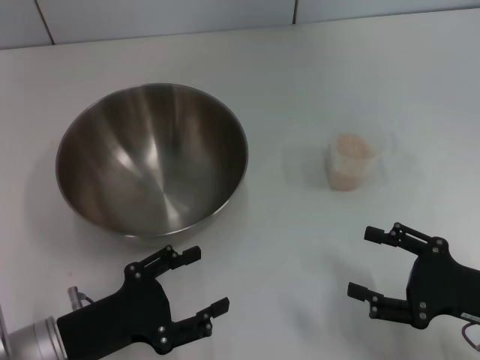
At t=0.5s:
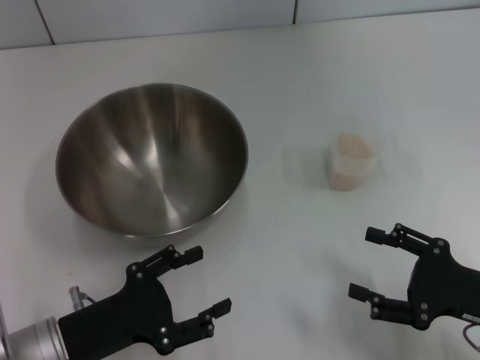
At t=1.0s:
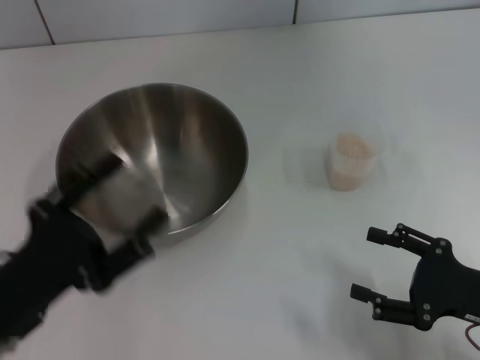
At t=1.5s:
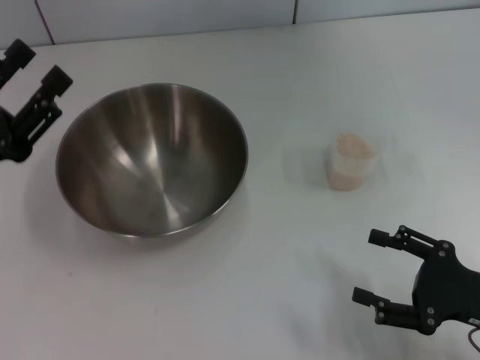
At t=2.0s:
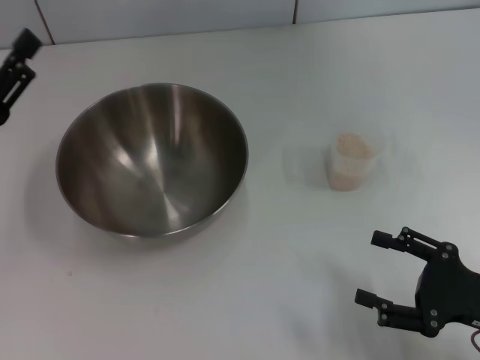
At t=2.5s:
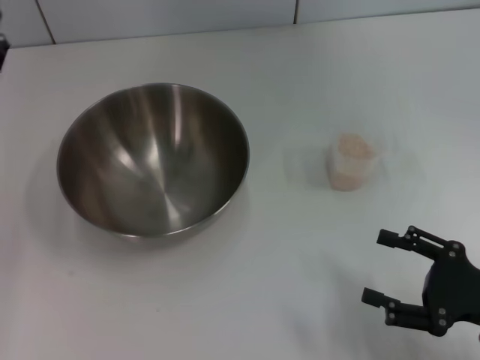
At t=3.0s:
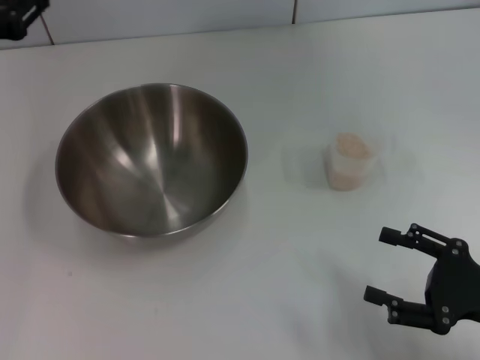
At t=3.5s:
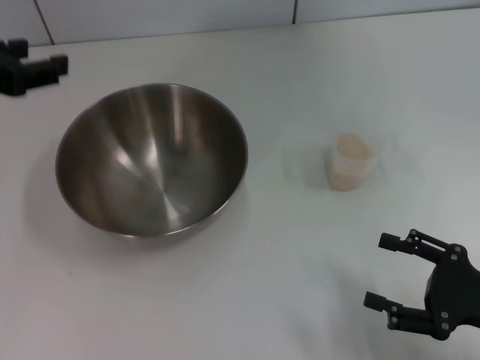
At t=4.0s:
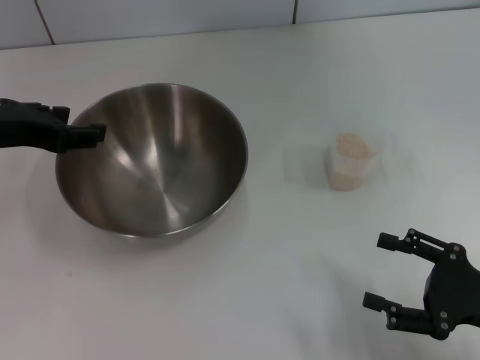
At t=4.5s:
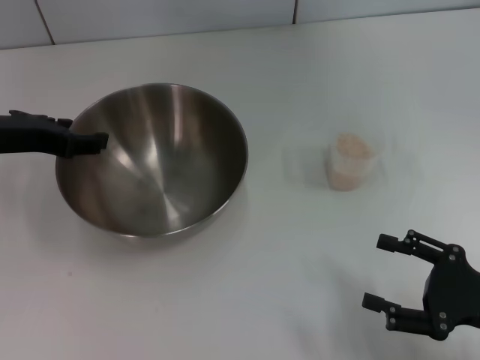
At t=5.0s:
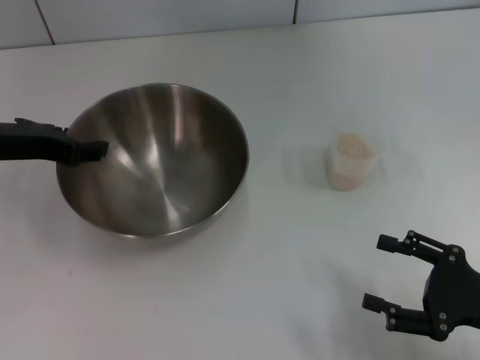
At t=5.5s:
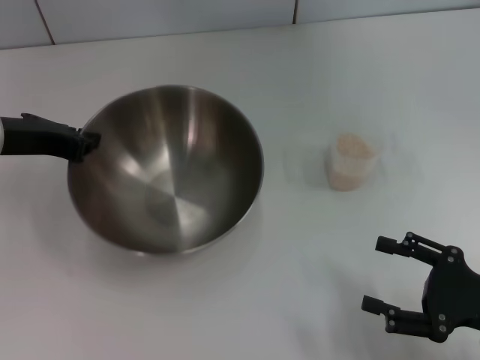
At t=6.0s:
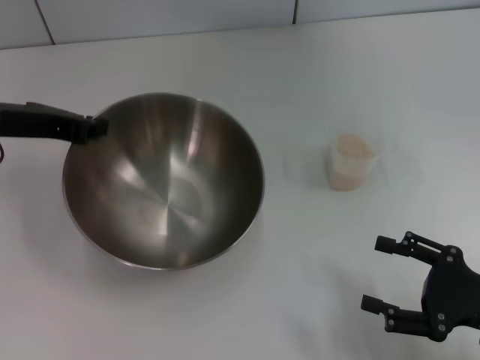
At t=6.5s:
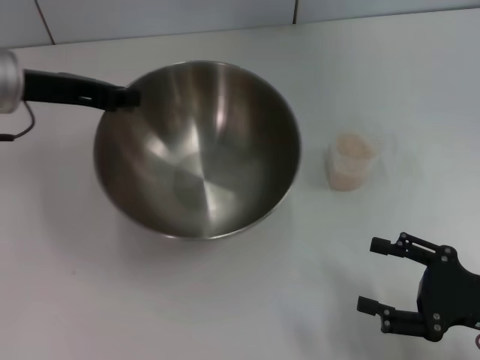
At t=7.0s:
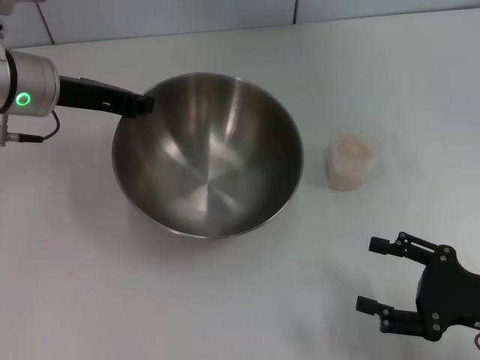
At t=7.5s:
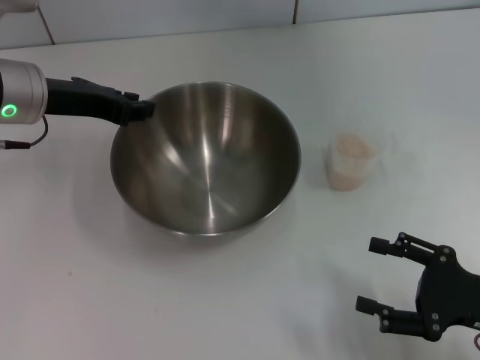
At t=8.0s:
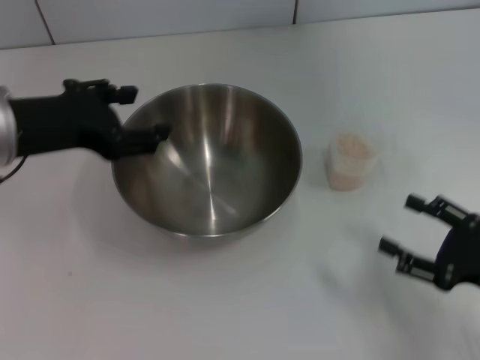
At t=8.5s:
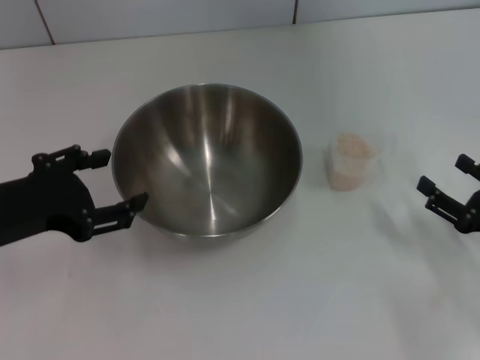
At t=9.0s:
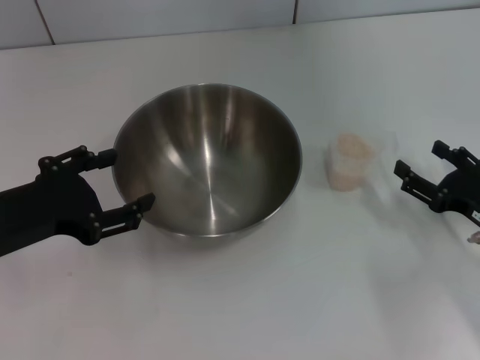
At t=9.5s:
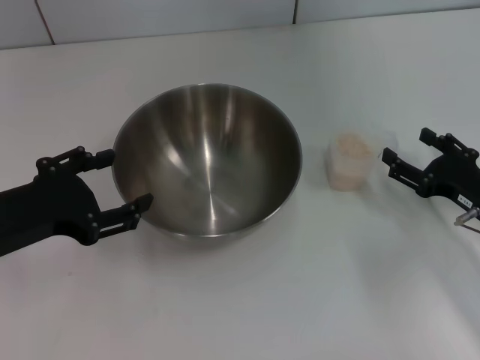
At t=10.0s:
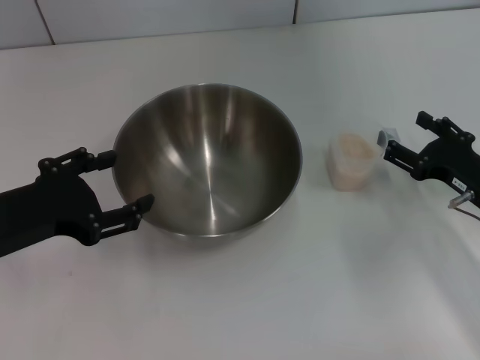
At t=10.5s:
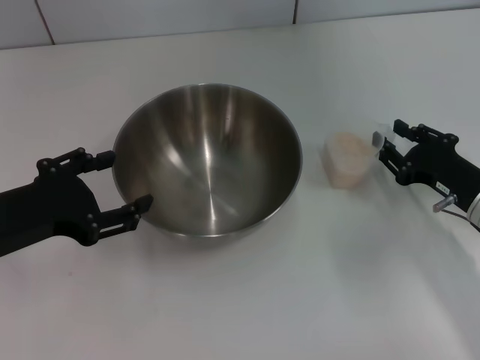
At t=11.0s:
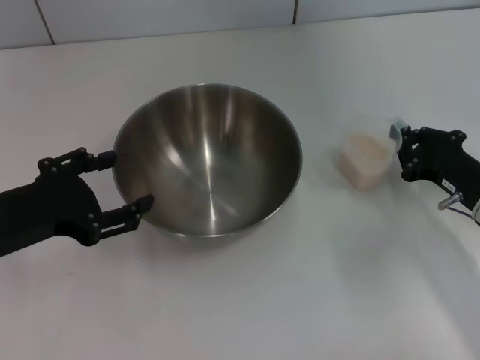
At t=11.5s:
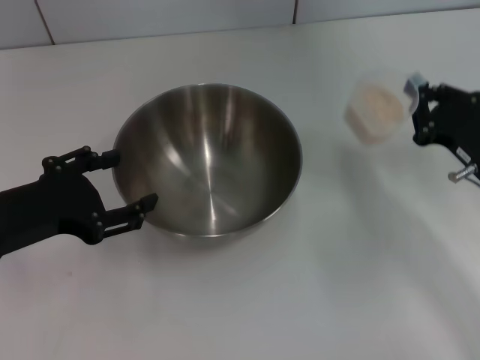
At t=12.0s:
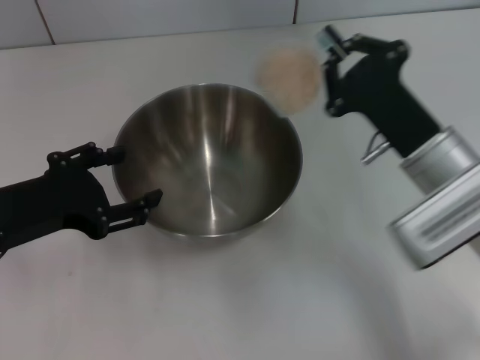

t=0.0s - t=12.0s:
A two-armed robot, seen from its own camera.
Task of the whole recording: Place the bowl in the middle of the table with one hand and pour the rice from the grain cup into it with the other hand.
Step, t=0.0s - t=6.0s: Pick up the bowl with the left gripper.
Step, t=6.5s - t=8.0s: Place the bowl in the center of view with the left gripper.
Step, t=8.5s - t=11.0s: Pick up the cup with rice in it with the right gripper.
t=0.0s - t=2.0s: The left gripper heads upward, forward and to the left, covering some 15 cm.
t=2.0s - t=4.0s: The left gripper goes approximately 10 cm upward and forward.
t=4.0s - t=6.0s: The left gripper closes.
t=6.0s - t=8.0s: The left gripper goes about 5 cm backward, and opens its fingers.
t=8.0s - t=10.0s: The right gripper shifts approximately 10 cm forward, while the left gripper goes about 5 cm backward.
t=10.0s - t=12.0s: The right gripper moves to the left and upward, about 10 cm, and closes its fingers.

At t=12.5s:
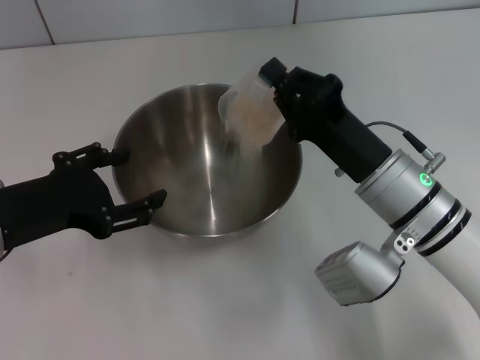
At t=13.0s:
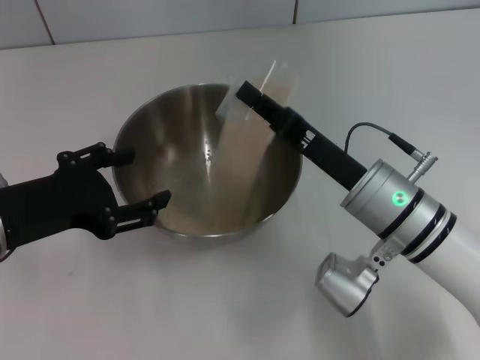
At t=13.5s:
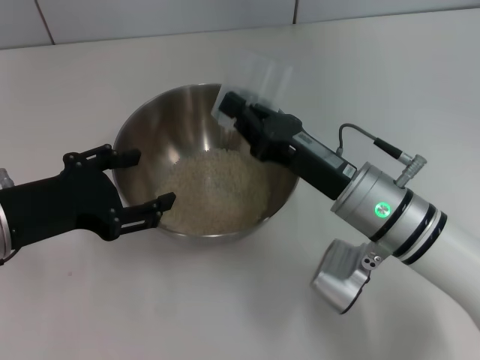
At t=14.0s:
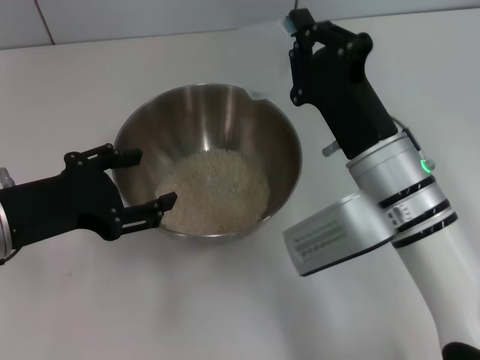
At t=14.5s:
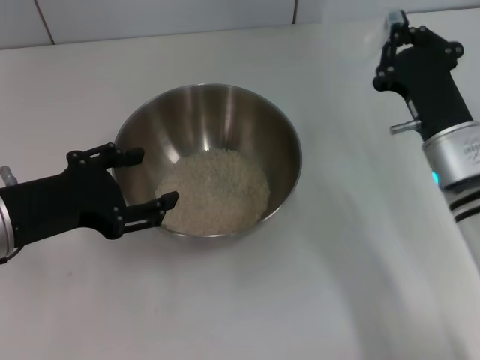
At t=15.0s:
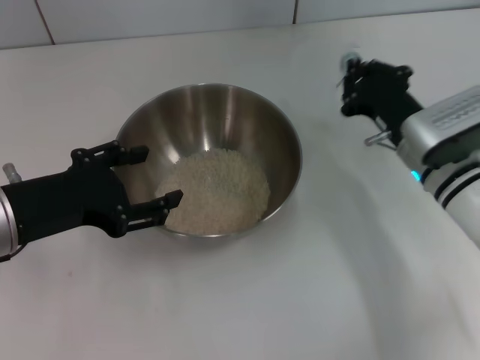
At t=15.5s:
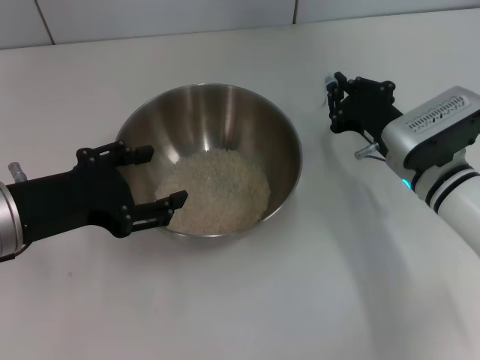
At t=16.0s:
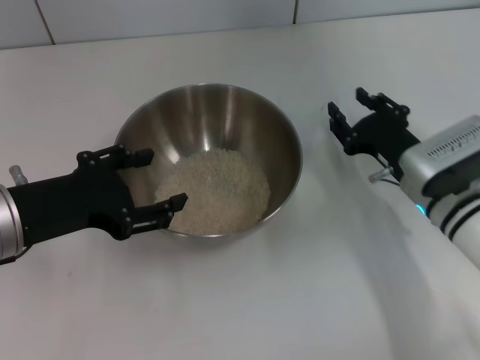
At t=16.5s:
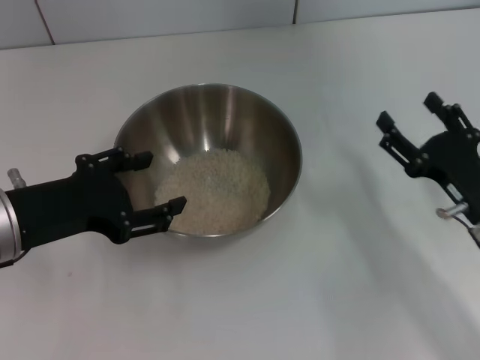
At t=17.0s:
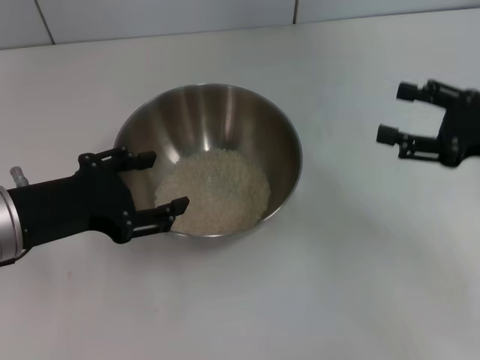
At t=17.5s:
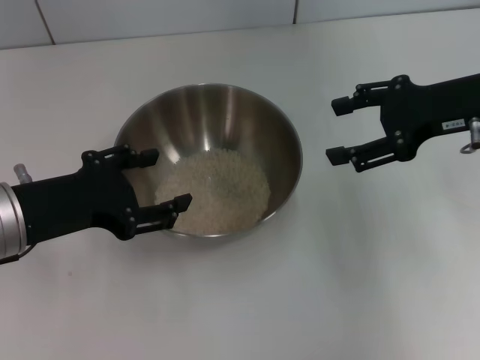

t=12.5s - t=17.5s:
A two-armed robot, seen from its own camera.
Task of the whole recording: Place the bowl in the middle of the table with one hand and pour the rice from the grain cup into it with the other hand.
Step, t=12.5s - t=14.0s: Pour the rice from the cup into the bowl with the right gripper.
Step, t=15.0s - t=16.0s: Place the cup on the table with the right gripper.
t=12.5s - t=15.0s: The right gripper is displaced to the right and forward by some 10 cm.
t=15.0s - t=17.5s: The right gripper heads upward and to the right, covering approximately 15 cm, and opens up.

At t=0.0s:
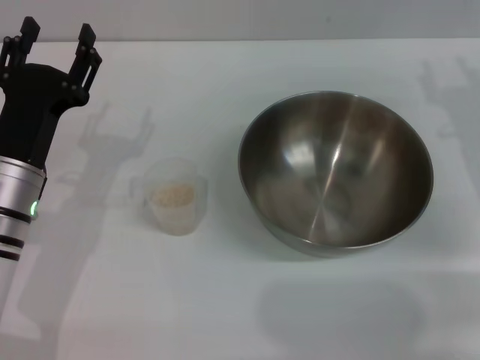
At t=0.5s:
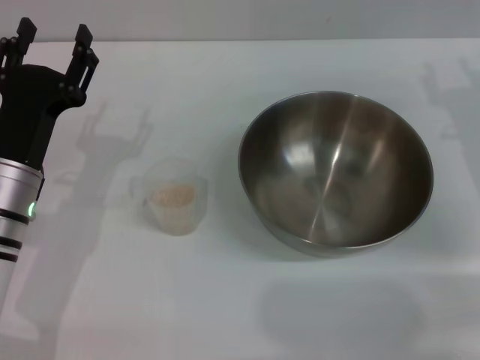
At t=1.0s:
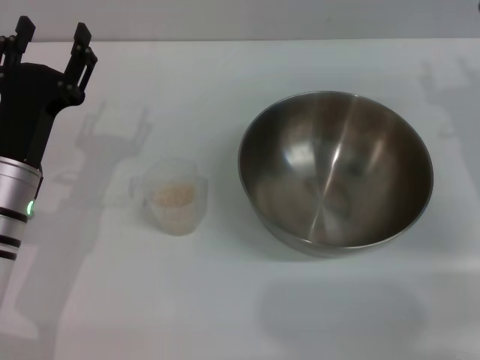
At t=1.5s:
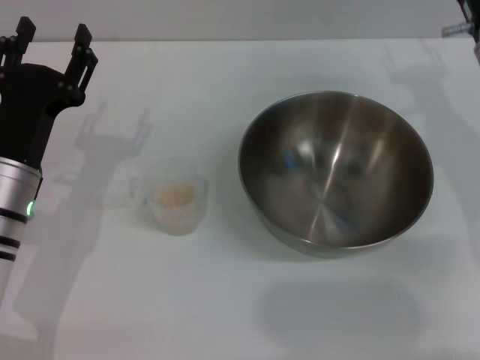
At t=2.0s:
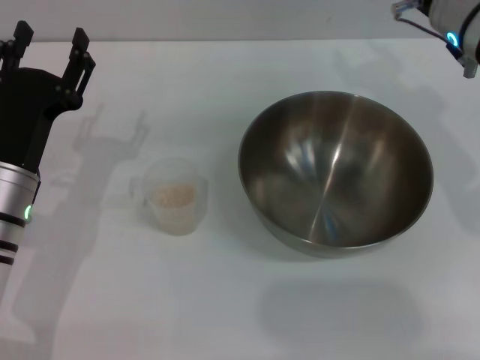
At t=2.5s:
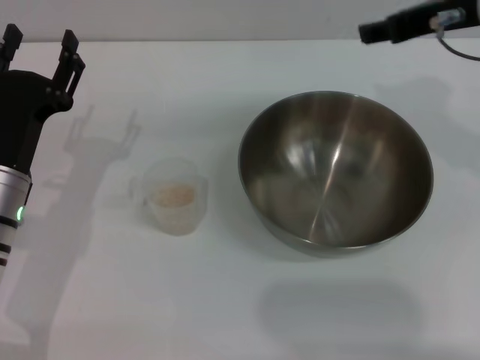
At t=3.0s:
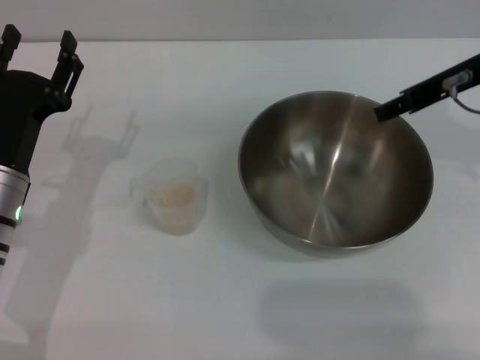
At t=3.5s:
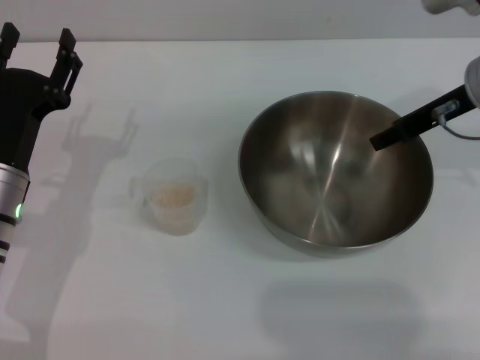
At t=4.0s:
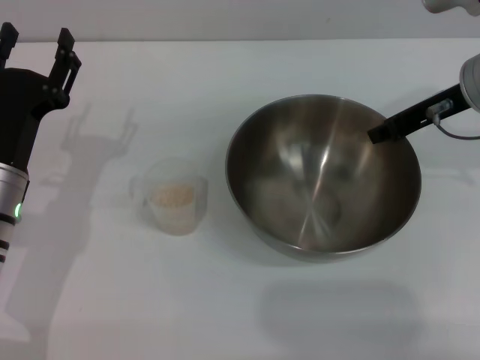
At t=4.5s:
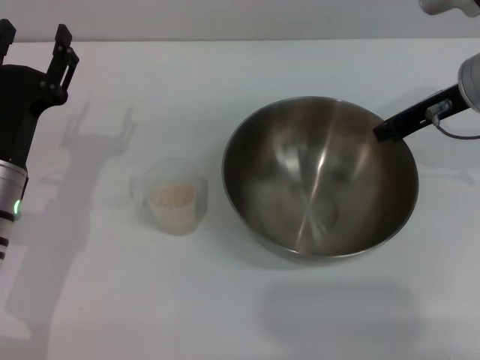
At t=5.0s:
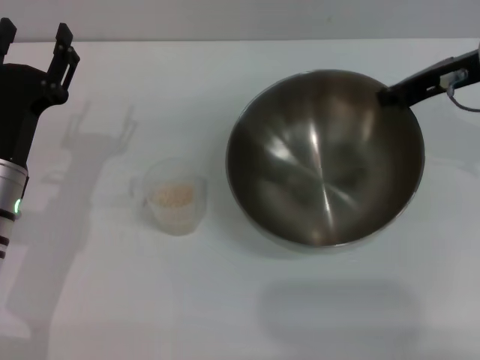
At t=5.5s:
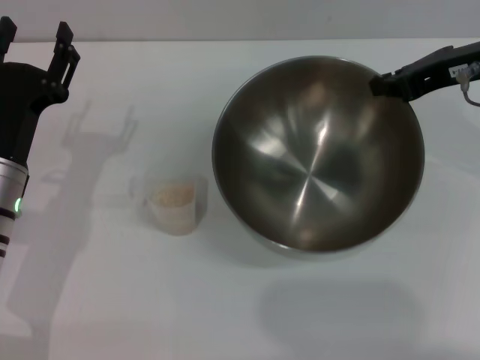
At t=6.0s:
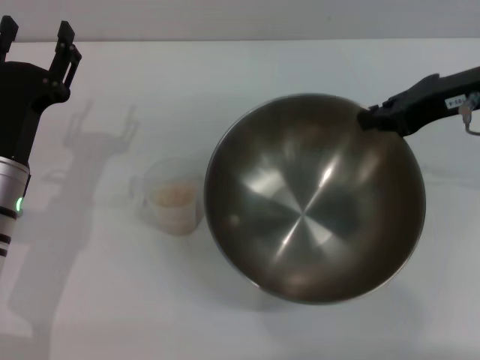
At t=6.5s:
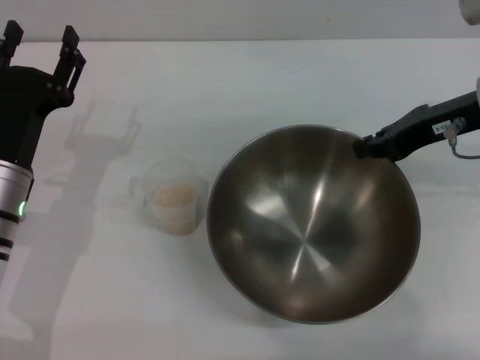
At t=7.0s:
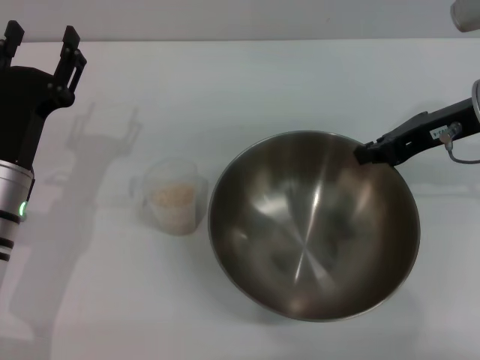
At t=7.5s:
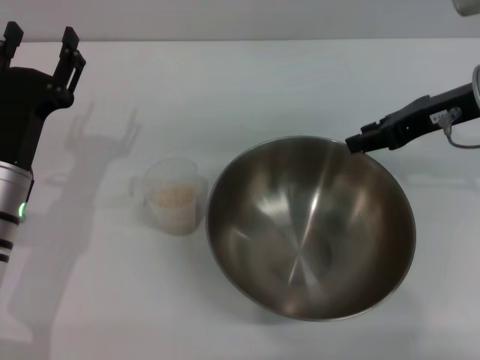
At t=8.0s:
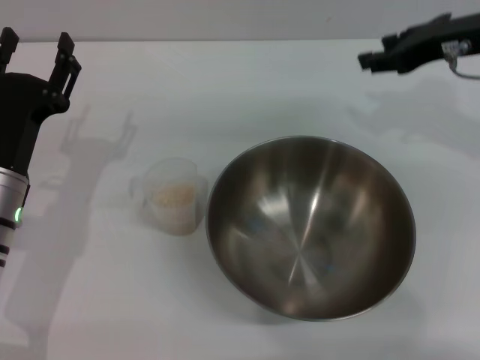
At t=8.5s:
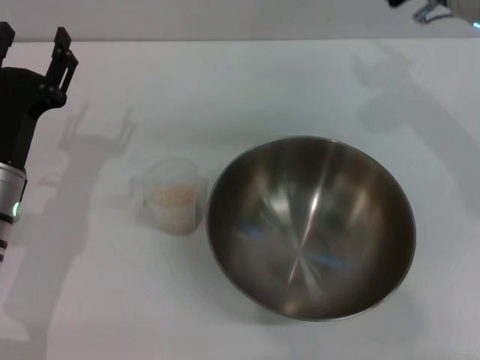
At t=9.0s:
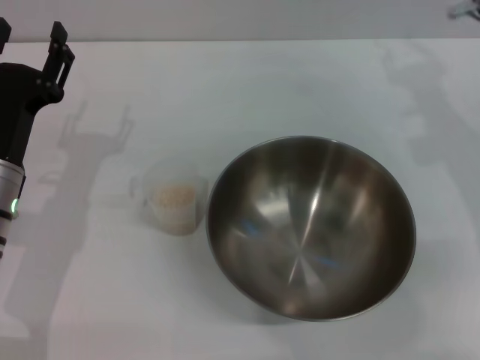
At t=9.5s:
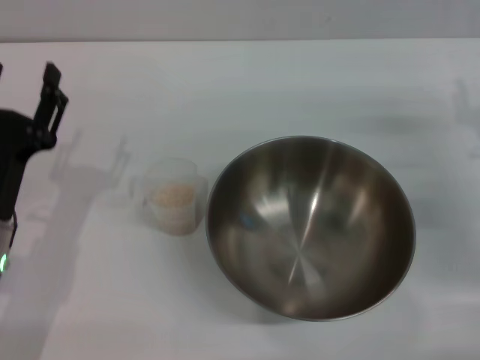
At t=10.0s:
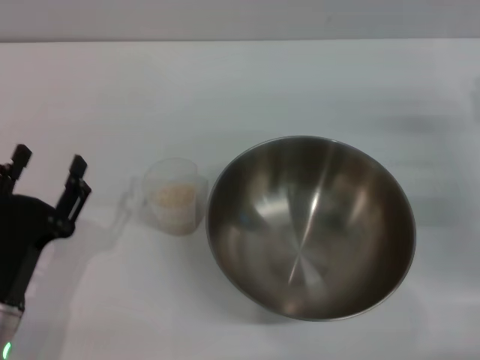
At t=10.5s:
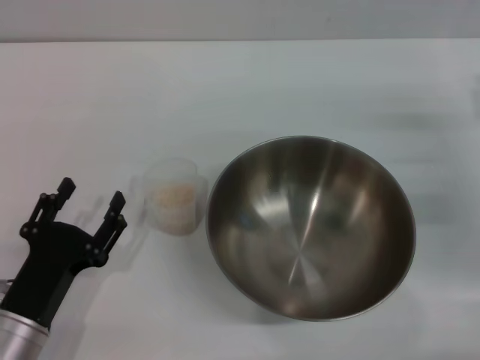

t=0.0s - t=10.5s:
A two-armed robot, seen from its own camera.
Task of the whole recording: Place the bowl in the middle of the table with one hand and pour the rice from the grain cup into it with the other hand.
Step, t=0.0s - t=5.0s: Pick up the bowl with the right gripper.
Step, t=5.5s - t=8.0s: Place the bowl in the center of view with the right gripper.
t=0.0s - t=2.0s: The right gripper shifts roughly 10 cm upward and to the left.
t=4.0s - t=6.5s: The right gripper closes its fingers.
t=6.5s - t=8.5s: The right gripper changes place by roughly 5 cm, and opens.
t=8.5s - t=10.5s: The left gripper is displaced backward and downward by approximately 15 cm. Meanwhile the right gripper travels downward, to the right and backward by some 20 cm.
